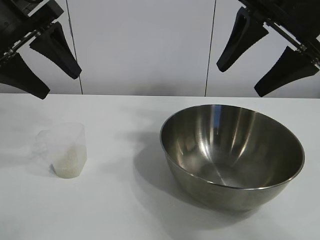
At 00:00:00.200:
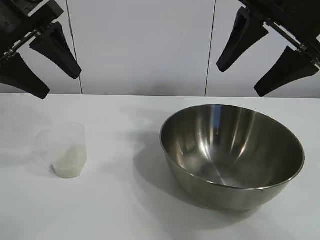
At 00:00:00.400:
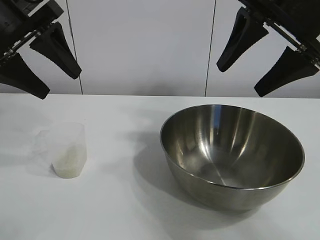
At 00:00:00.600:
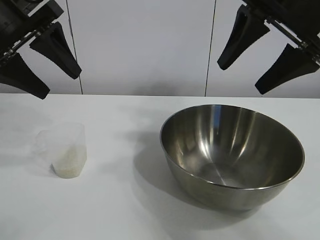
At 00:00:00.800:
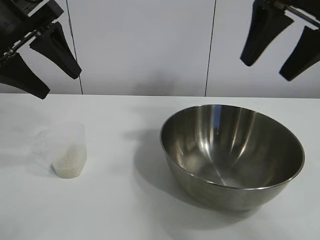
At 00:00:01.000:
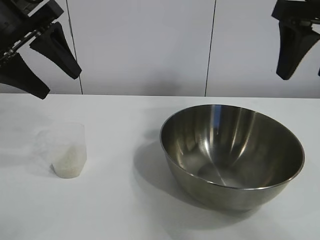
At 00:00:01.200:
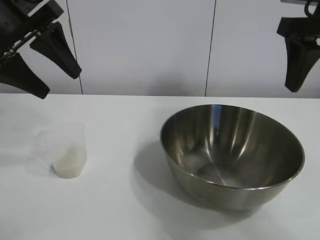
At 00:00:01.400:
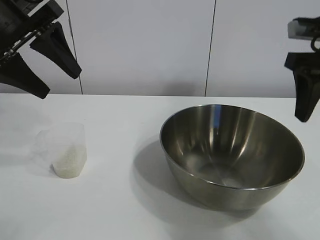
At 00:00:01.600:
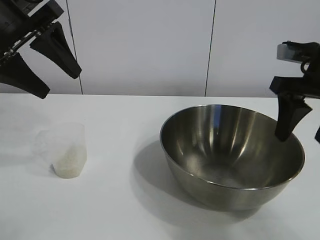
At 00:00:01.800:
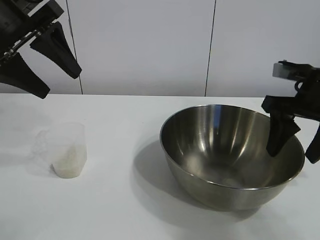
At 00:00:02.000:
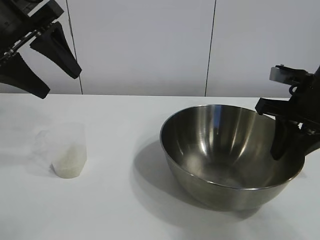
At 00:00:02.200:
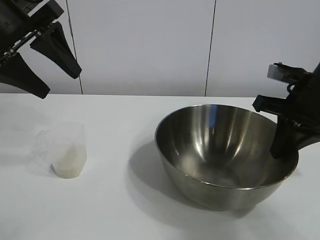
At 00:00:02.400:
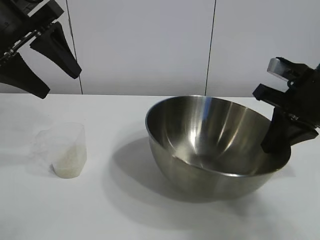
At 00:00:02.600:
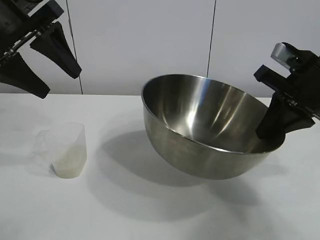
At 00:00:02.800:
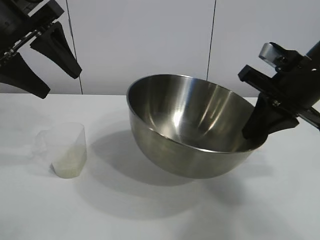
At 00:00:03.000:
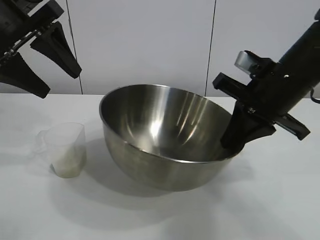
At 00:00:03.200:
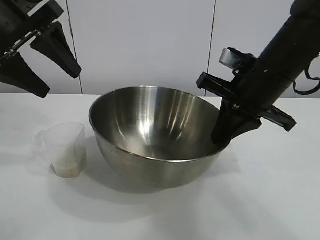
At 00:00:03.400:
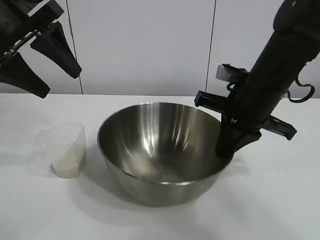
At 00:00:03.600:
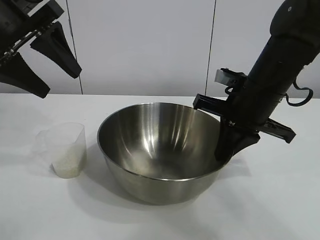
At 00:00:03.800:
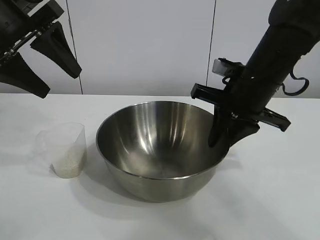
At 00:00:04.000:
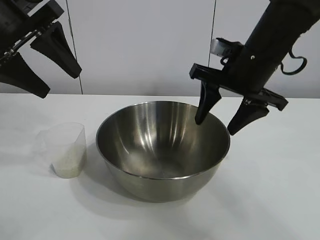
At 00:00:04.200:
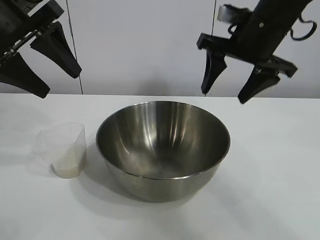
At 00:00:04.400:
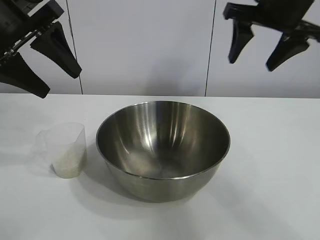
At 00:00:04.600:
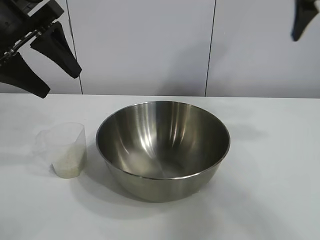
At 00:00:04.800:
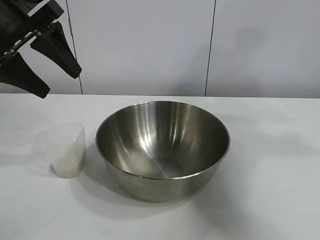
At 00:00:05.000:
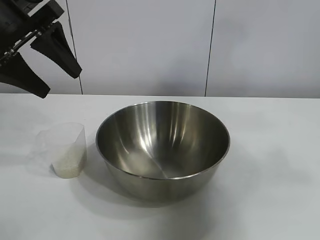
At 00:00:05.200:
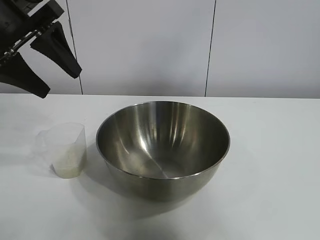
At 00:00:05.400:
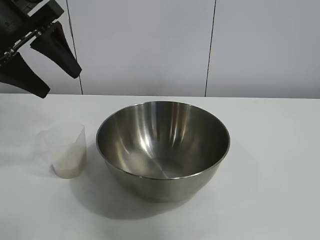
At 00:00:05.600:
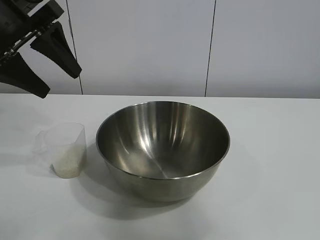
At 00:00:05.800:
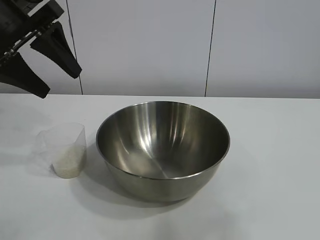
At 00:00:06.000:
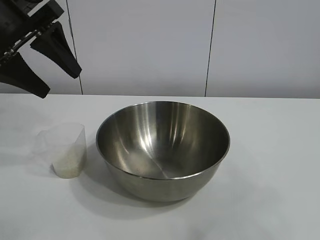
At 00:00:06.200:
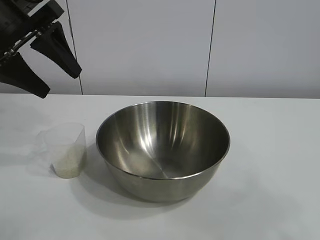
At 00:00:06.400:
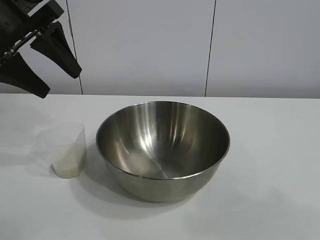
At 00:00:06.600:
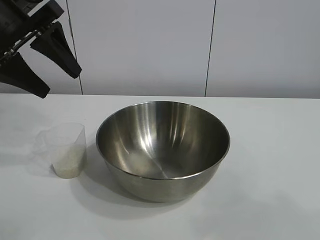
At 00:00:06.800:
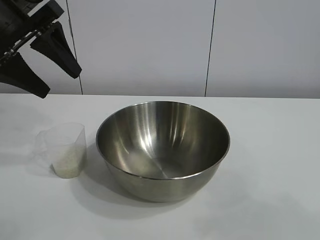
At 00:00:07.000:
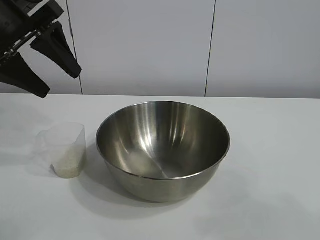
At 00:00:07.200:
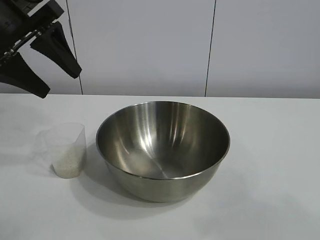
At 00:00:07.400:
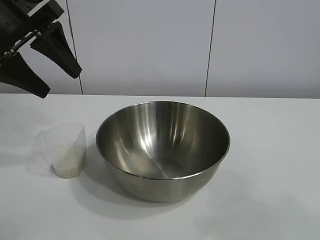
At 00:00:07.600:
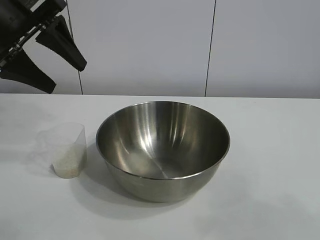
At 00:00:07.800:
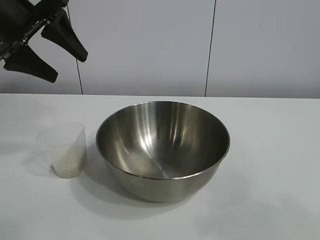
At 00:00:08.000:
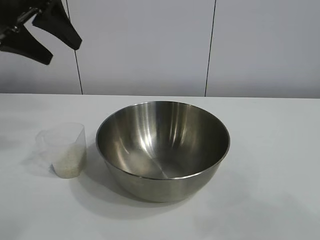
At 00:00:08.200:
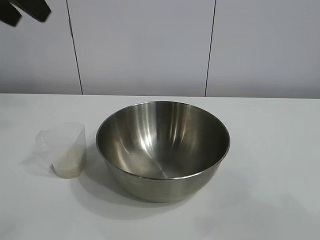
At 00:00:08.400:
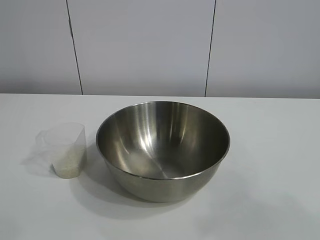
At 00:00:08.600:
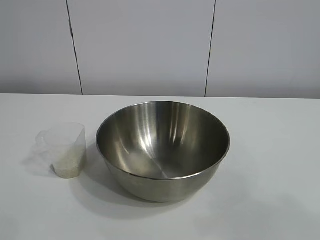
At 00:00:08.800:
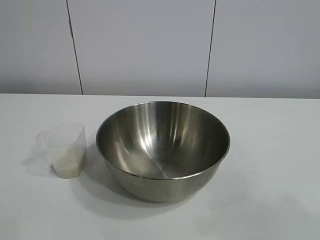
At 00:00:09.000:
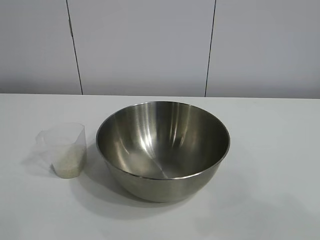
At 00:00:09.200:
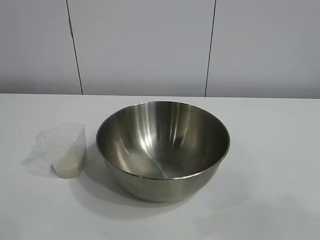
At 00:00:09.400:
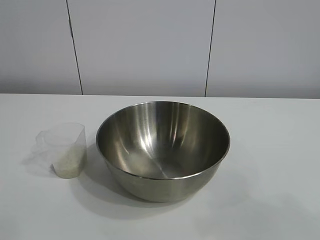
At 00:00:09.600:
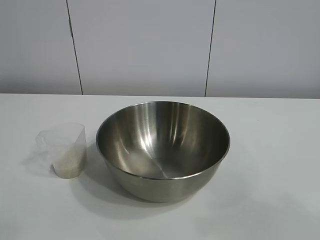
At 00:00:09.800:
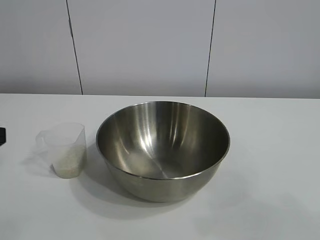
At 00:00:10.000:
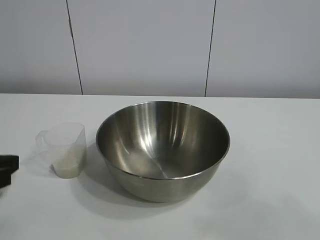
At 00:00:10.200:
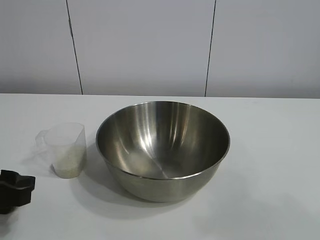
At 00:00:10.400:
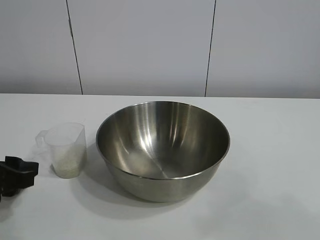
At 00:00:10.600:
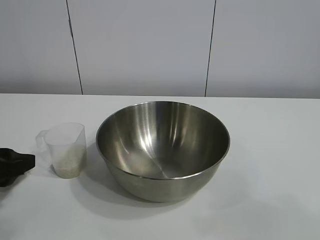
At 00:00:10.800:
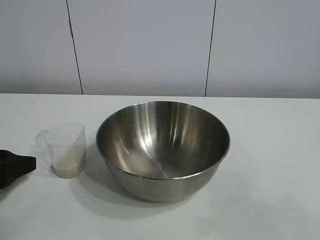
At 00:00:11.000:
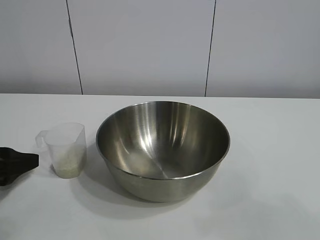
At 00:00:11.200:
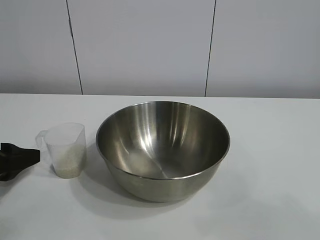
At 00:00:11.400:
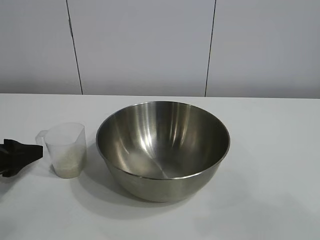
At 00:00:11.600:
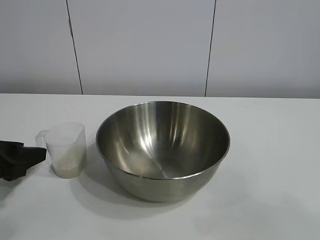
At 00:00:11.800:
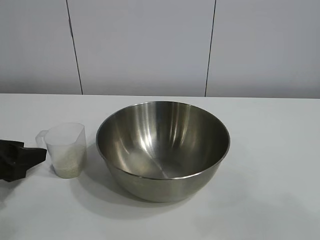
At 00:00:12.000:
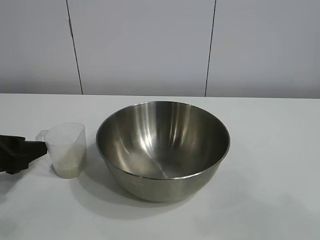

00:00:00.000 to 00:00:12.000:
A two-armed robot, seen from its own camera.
Task of the whole recording: the right gripper grasp the rice container and place it in the center of the table, the left gripper grasp the rice scoop and pour the rice into the rice container.
Step, 00:00:00.600 to 00:00:03.800: Move the bowl in the center of view with right gripper.

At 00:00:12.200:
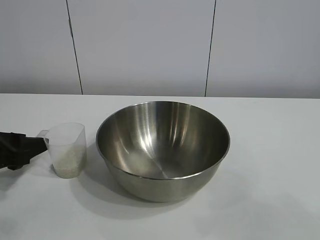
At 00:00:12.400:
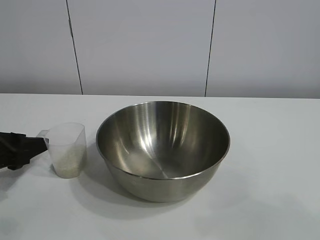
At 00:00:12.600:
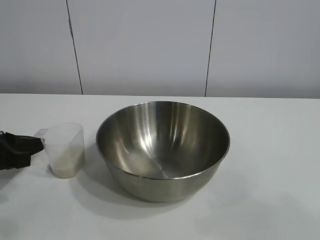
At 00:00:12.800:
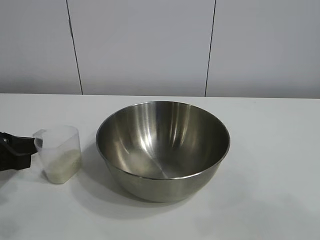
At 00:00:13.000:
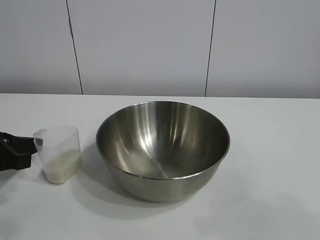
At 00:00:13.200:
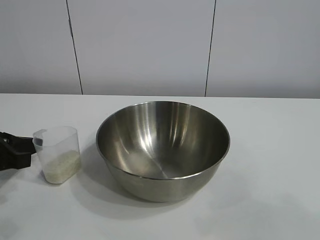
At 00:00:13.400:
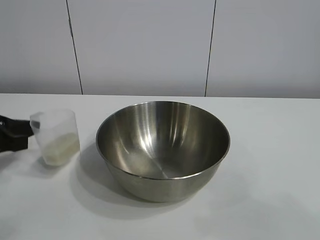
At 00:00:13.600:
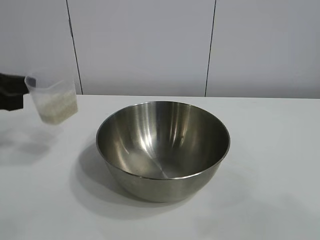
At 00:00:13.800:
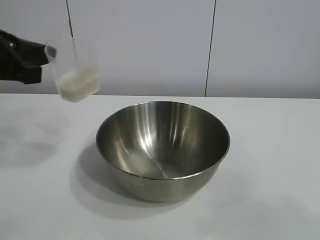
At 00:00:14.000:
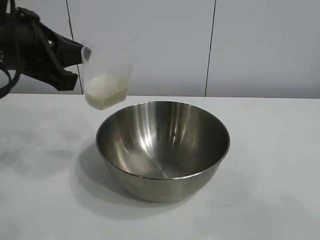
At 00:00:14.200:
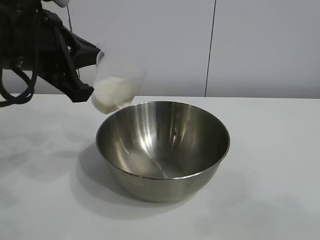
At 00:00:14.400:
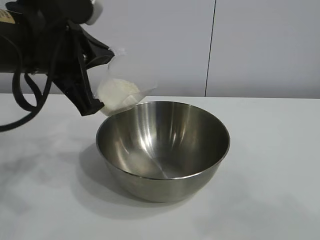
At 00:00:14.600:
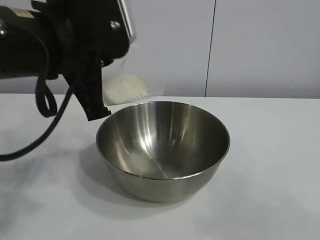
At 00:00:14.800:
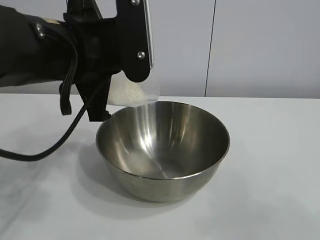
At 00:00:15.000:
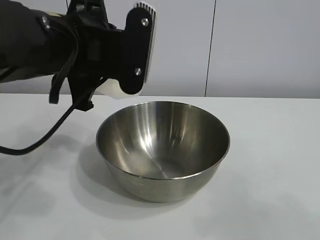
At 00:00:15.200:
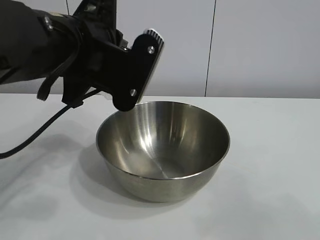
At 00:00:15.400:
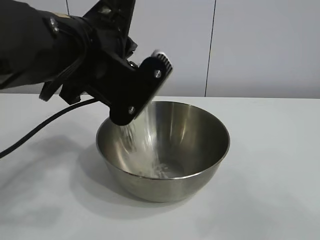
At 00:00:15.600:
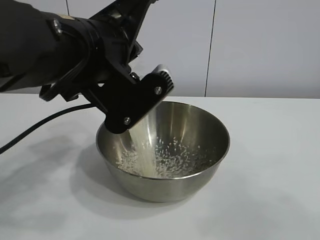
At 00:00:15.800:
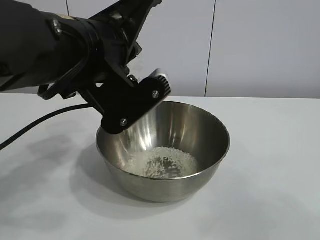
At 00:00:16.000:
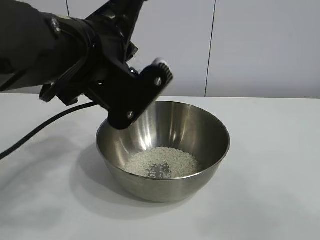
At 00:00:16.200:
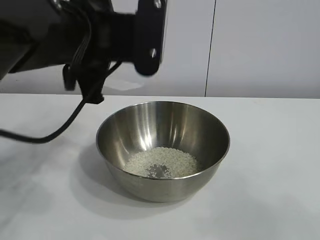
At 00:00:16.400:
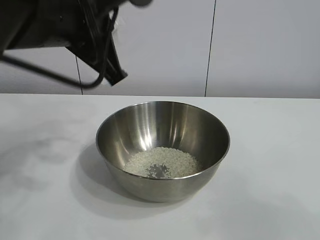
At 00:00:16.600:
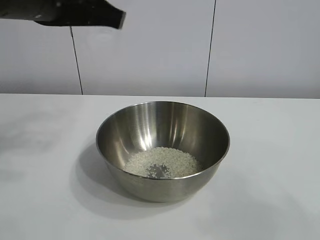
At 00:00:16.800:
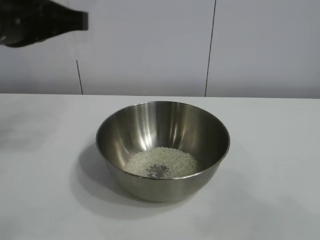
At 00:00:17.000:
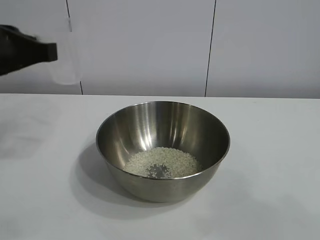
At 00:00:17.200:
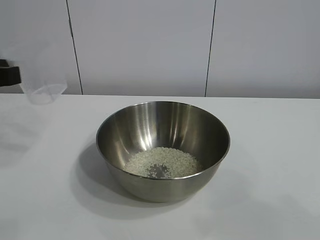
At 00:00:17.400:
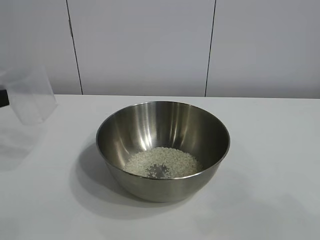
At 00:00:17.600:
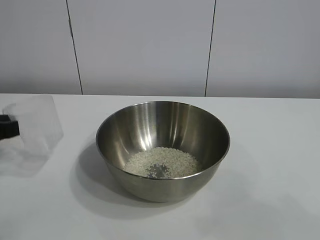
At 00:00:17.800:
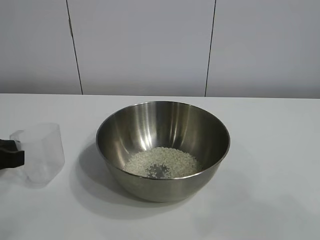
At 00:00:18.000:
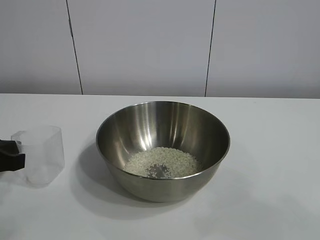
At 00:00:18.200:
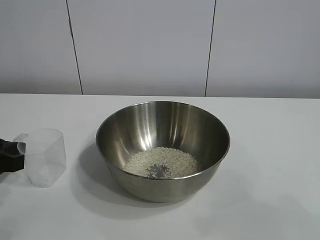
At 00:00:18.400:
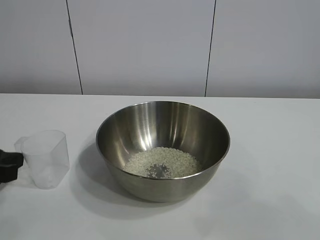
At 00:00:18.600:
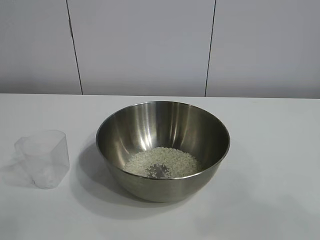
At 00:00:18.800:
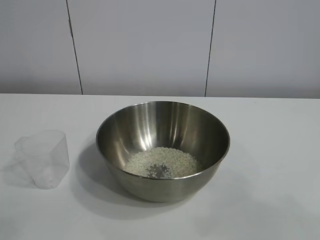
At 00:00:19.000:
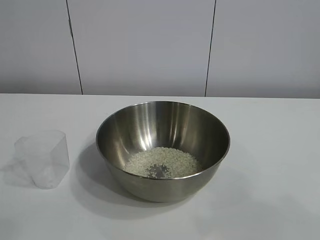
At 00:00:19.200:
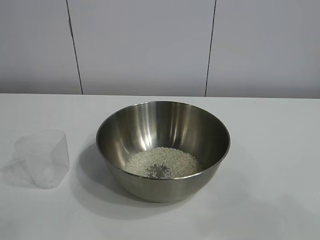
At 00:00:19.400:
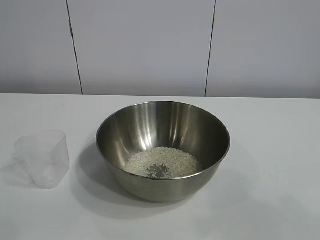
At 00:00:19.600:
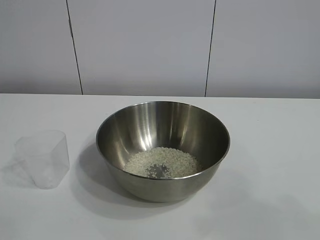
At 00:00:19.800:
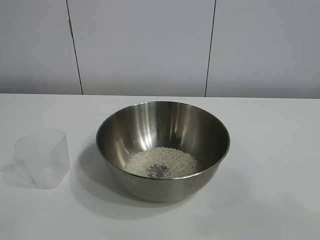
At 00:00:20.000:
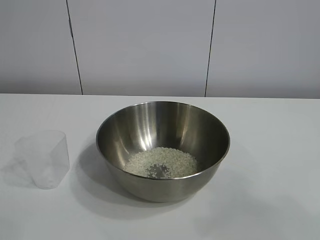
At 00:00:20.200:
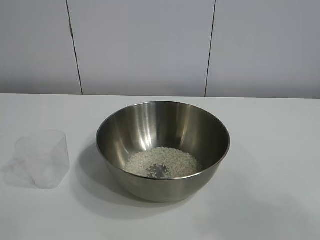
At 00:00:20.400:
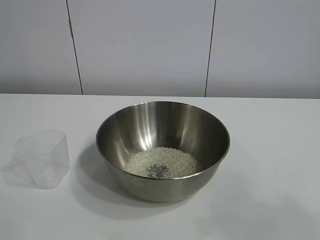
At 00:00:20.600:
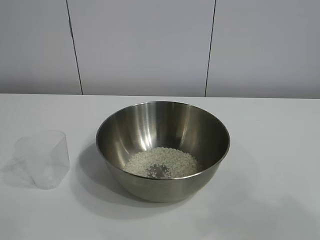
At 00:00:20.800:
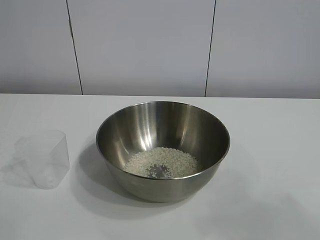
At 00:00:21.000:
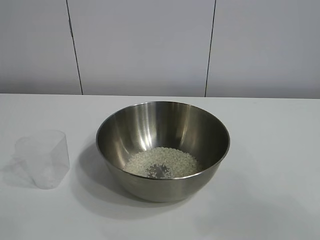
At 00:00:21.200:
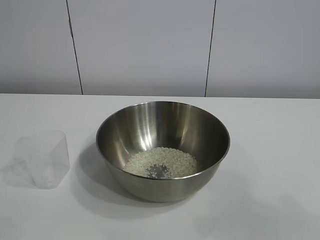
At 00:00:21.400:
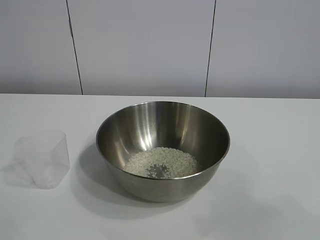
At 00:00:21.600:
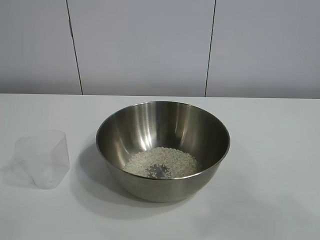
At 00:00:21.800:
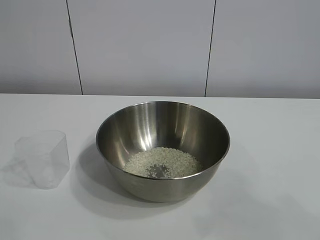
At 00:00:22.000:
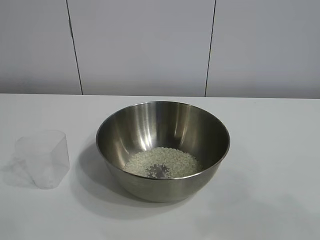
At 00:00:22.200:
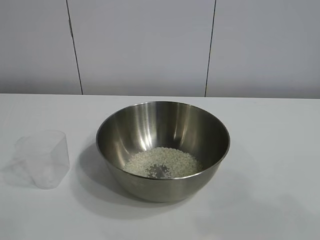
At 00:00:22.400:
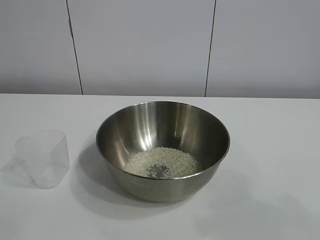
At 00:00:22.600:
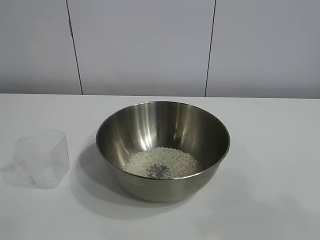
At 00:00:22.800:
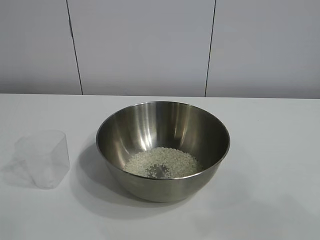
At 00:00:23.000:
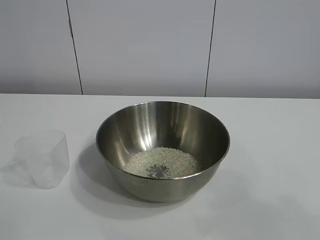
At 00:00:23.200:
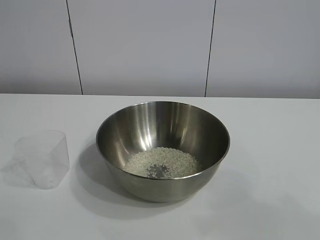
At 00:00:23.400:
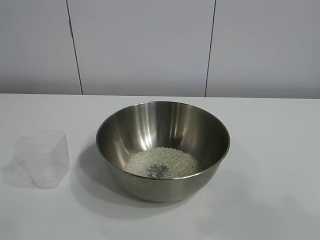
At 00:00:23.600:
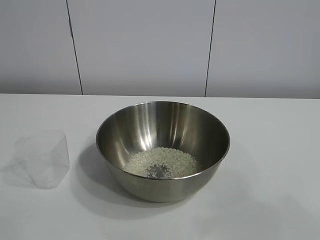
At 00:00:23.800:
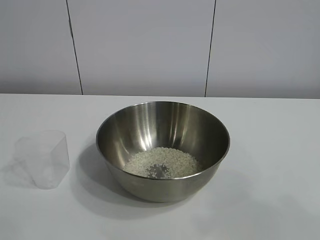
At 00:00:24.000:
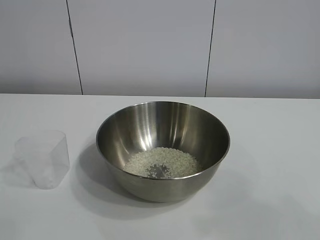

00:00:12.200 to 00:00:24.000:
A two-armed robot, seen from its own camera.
Task of the whole recording: the right gripper grasp the rice container and place it in the center of the table, the left gripper grasp the rice scoop and pour the rice into the rice container.
Step, 00:00:13.200 to 00:00:16.000: Pour the rice from the cup into the bowl with the left gripper.
Step, 00:00:16.400 to 00:00:18.200: Place the cup on the table with the left gripper.
